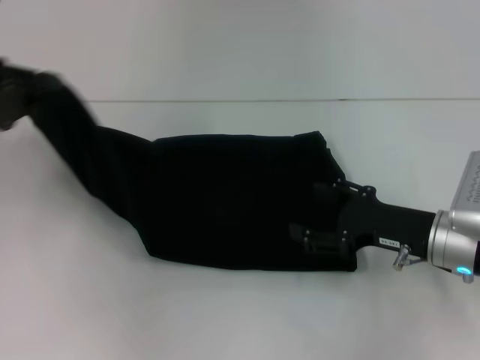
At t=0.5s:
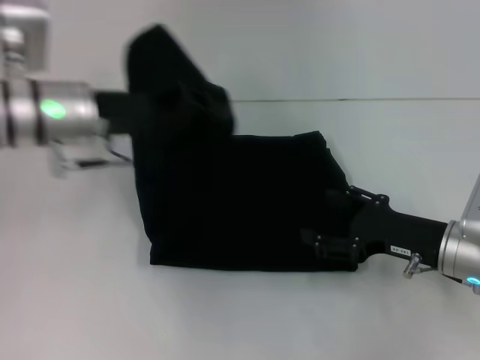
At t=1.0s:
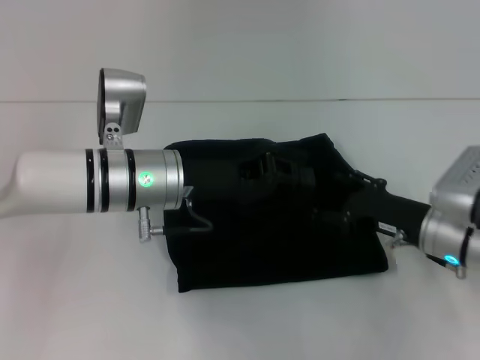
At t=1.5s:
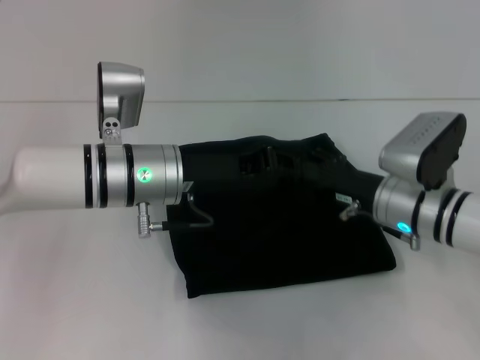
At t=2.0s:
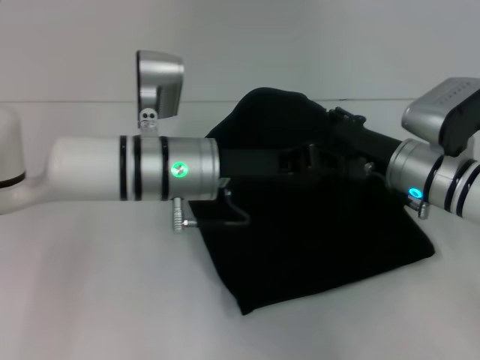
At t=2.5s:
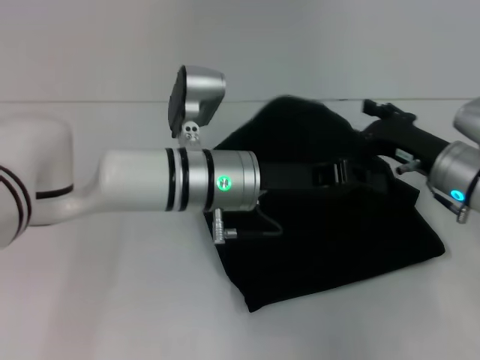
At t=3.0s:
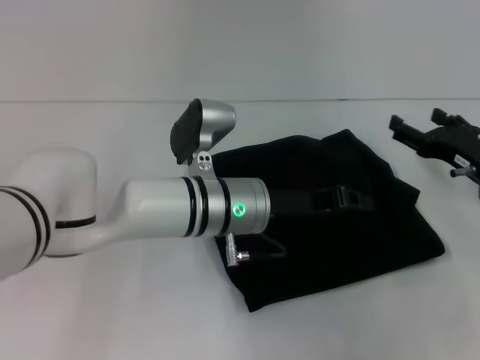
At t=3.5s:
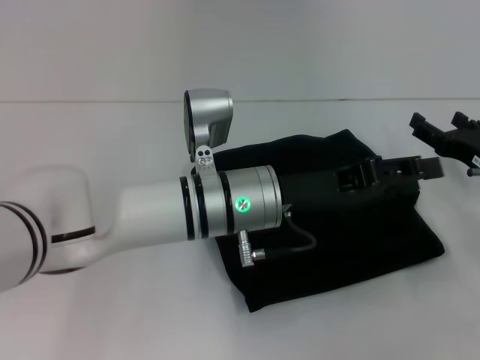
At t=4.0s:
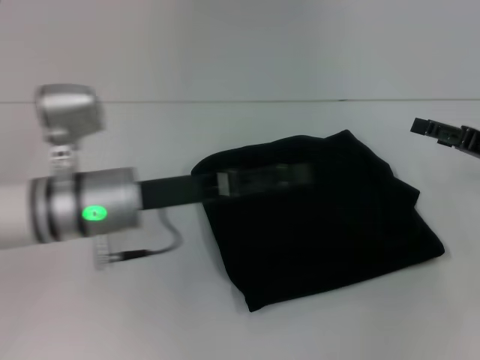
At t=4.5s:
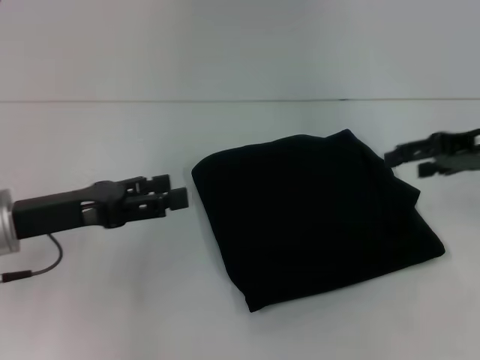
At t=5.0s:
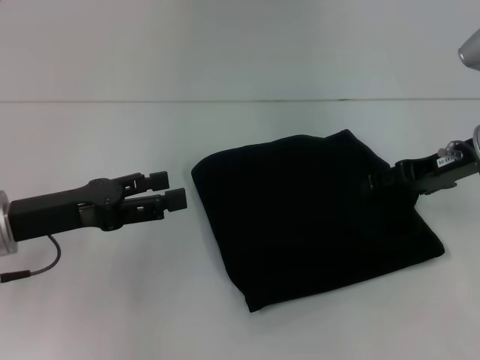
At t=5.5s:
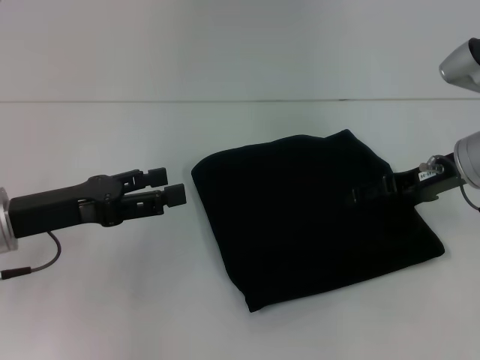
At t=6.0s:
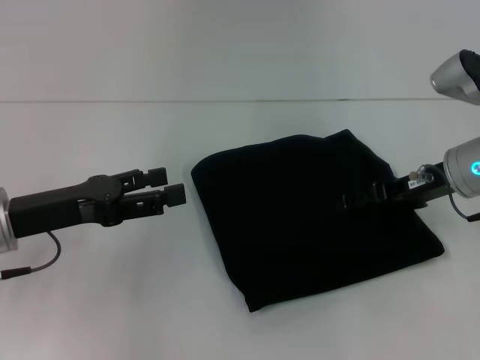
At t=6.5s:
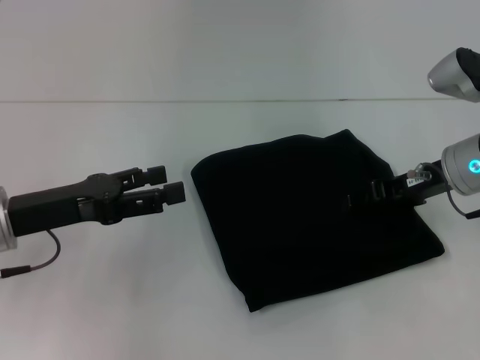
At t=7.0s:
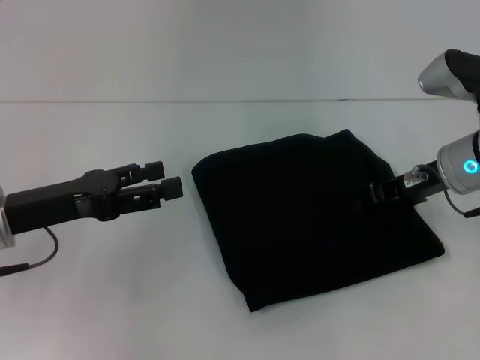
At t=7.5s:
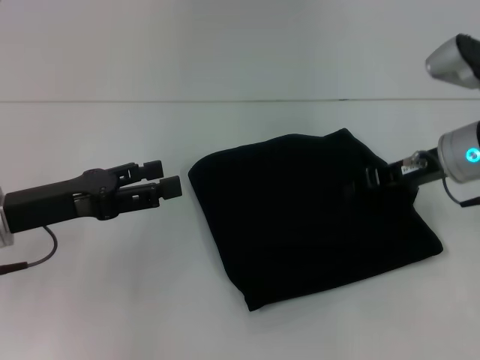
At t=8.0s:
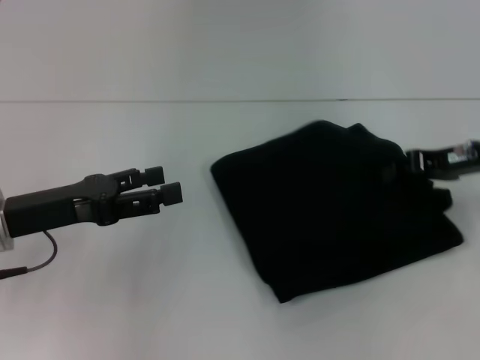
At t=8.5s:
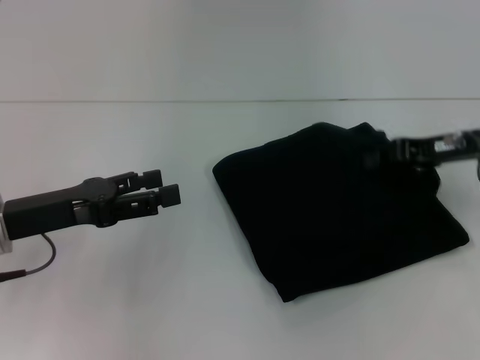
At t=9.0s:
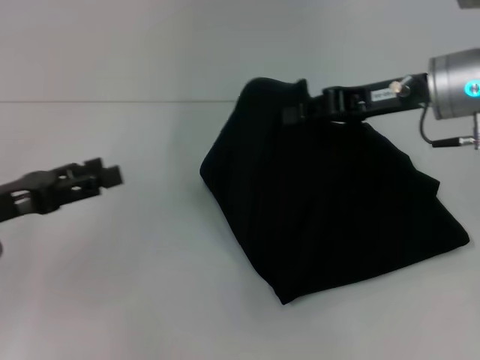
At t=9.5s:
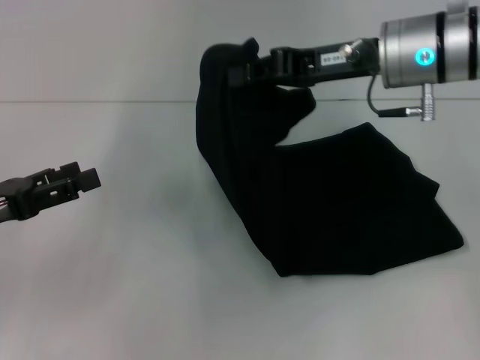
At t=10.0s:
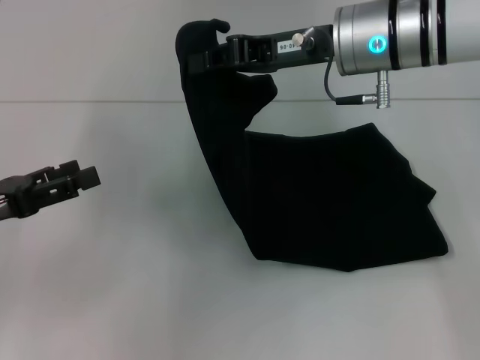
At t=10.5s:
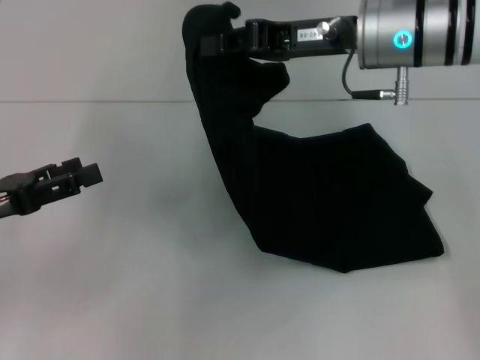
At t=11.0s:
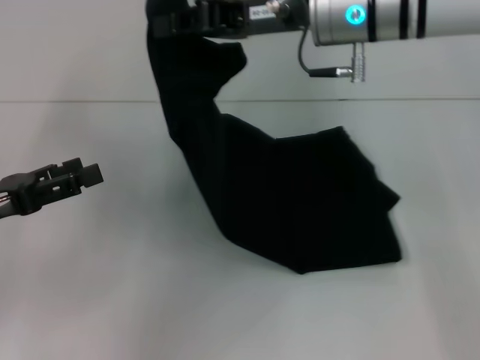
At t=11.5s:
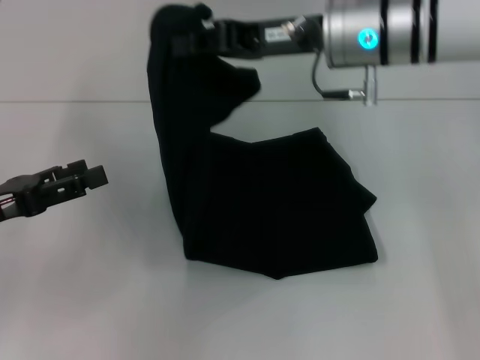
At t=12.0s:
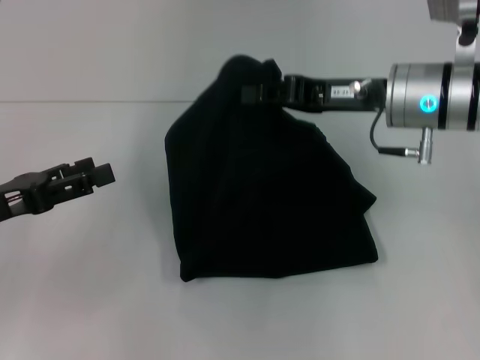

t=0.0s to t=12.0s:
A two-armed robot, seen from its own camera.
Step, t=0.0s to t=3.0s: Fold the clothes with your left hand.
t=0.0s to t=2.0s: The right gripper travels forward by about 5 cm, while the left gripper travels to the right by some 25 cm.
t=2.0s to t=4.0s: The right gripper is displaced to the right by approximately 15 cm. The left gripper goes approximately 5 cm to the left, and opens its fingers.
t=4.0s to t=6.0s: Both grippers move to the left, approximately 10 cm.
t=6.0s to t=8.0s: The right gripper closes up.
t=8.0s to t=10.0s: The right gripper shifts some 20 cm to the left and upward. The left gripper goes some 5 cm to the left.
t=10.0s to t=12.0s: The right gripper goes some 10 cm to the right and downward.

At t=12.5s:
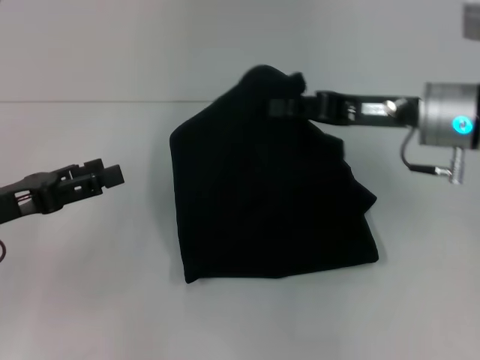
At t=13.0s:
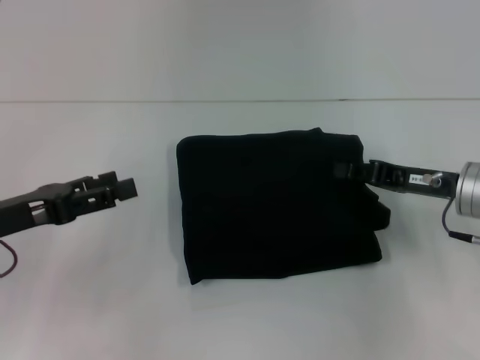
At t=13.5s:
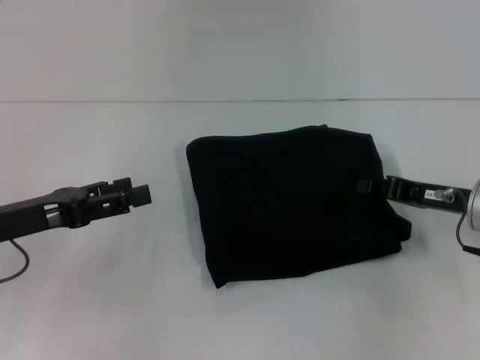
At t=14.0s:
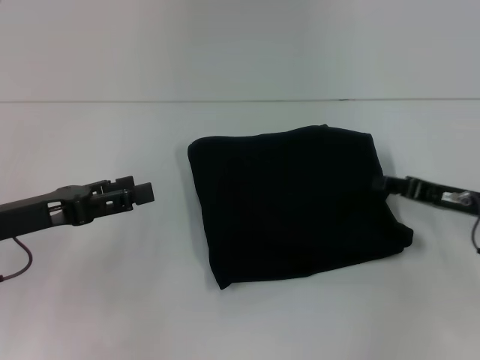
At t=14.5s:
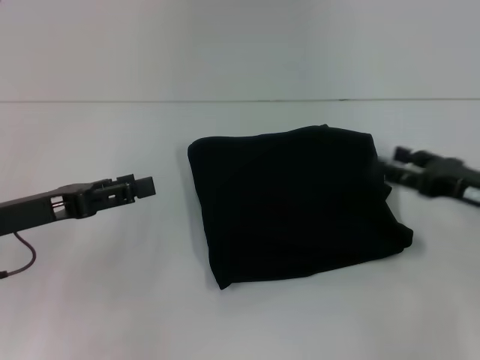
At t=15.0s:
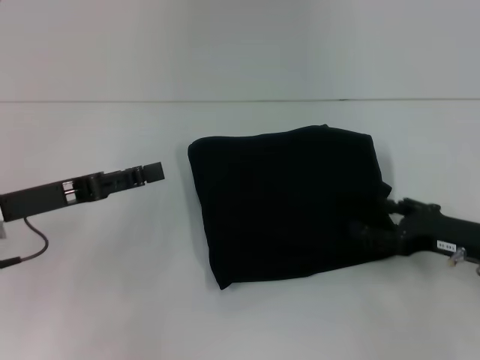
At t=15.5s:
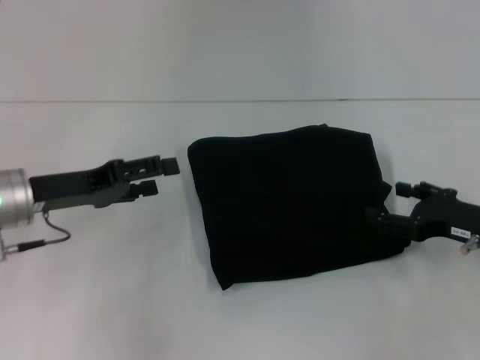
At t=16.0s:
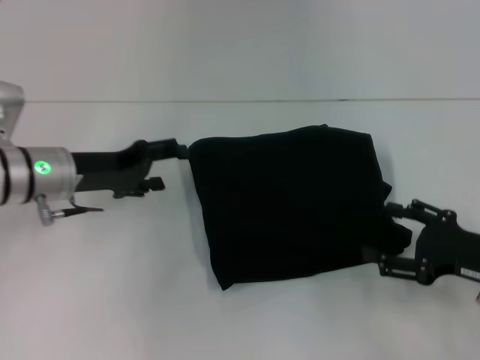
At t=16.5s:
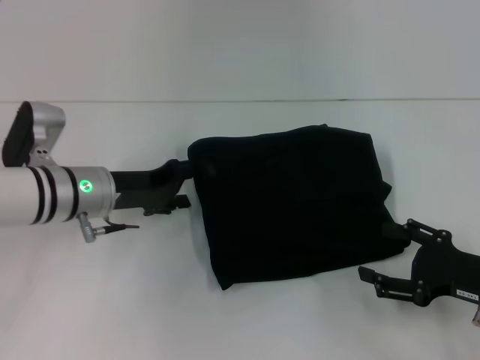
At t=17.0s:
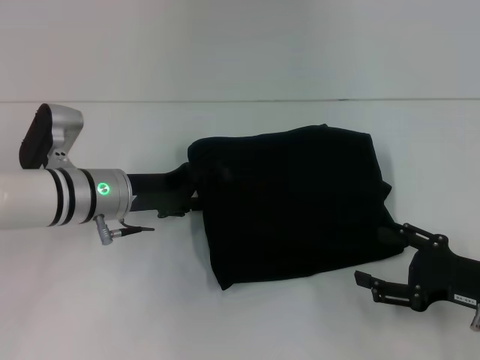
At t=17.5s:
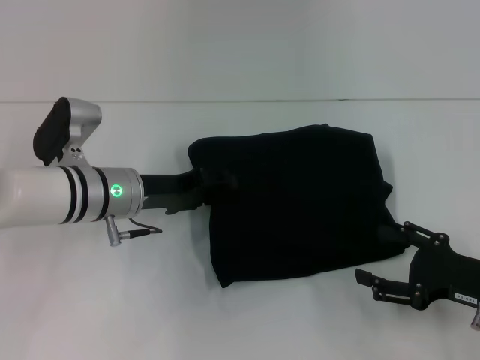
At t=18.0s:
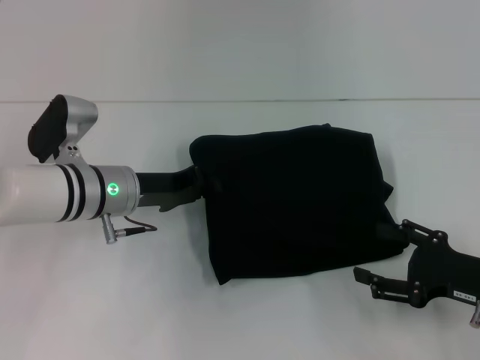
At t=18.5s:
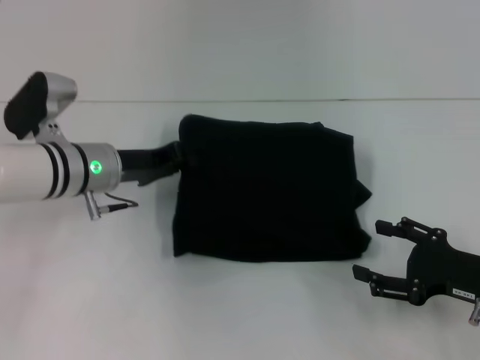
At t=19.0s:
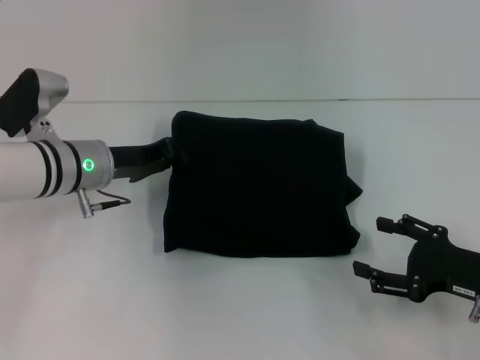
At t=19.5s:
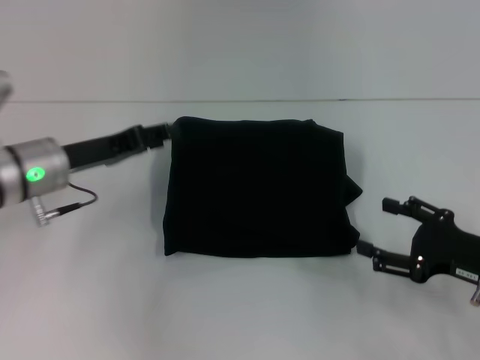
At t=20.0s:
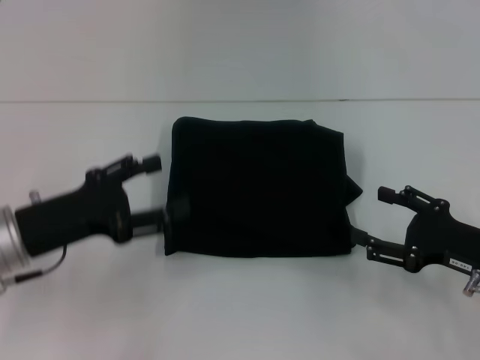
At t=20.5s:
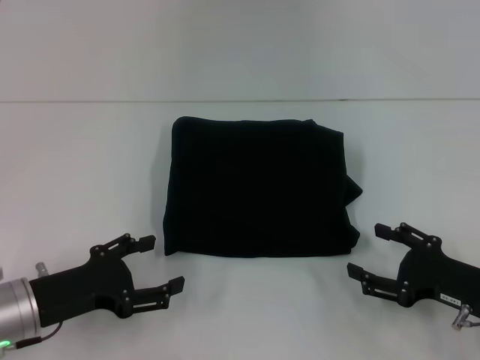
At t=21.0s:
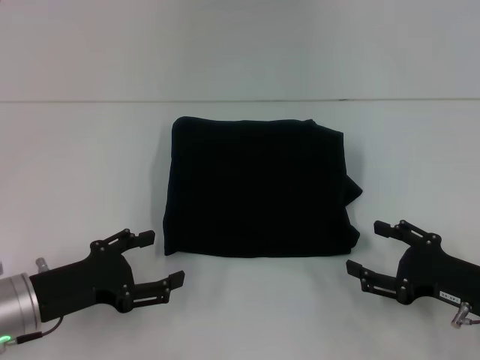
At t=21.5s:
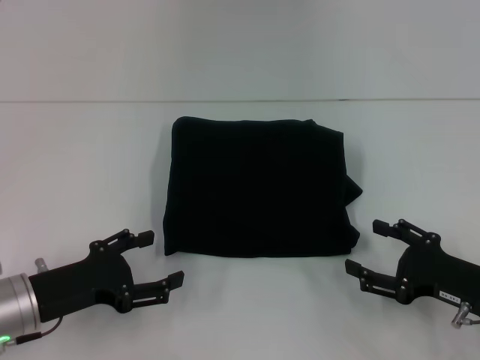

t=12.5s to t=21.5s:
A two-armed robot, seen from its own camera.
t=12.5s to t=14.5s: The right gripper shifts some 15 cm to the right, downward and backward, and opens up.
t=14.5s to t=17.0s: The right gripper moves backward, roughly 5 cm, while the left gripper moves to the right and forward, about 15 cm.
t=17.0s to t=19.5s: The left gripper heads to the left, covering some 5 cm, and closes its fingers.
t=19.5s to t=21.5s: The left gripper shifts about 15 cm backward and downward, and opens up.

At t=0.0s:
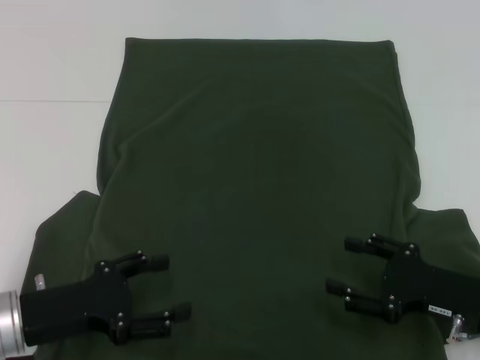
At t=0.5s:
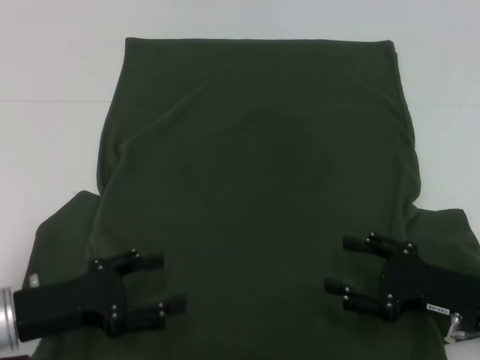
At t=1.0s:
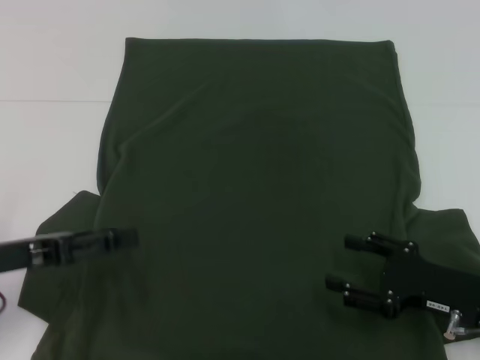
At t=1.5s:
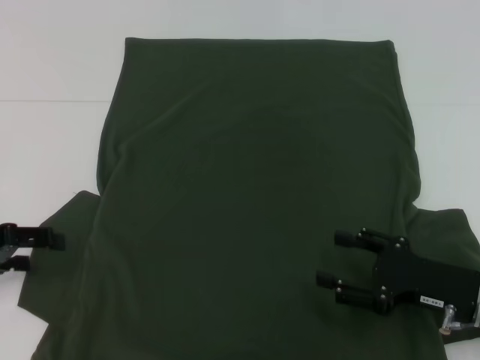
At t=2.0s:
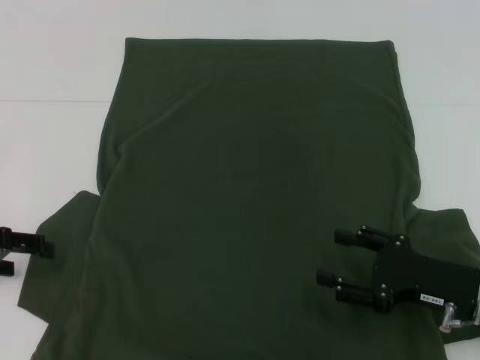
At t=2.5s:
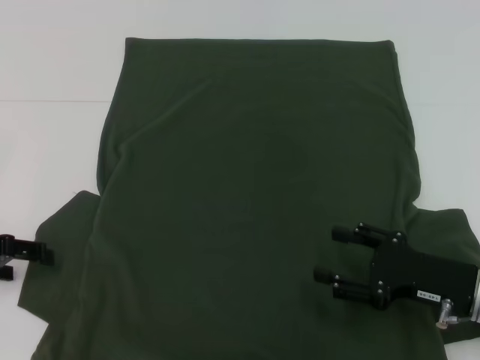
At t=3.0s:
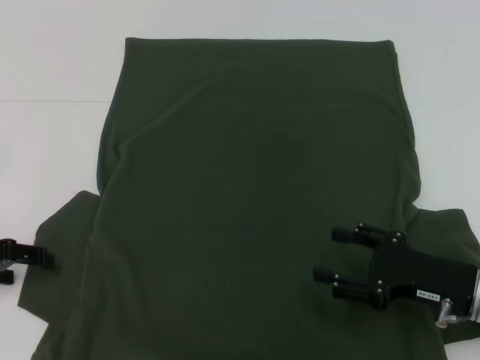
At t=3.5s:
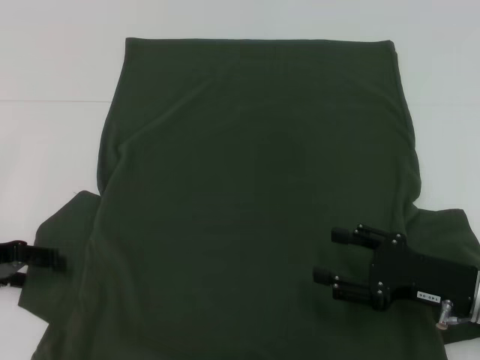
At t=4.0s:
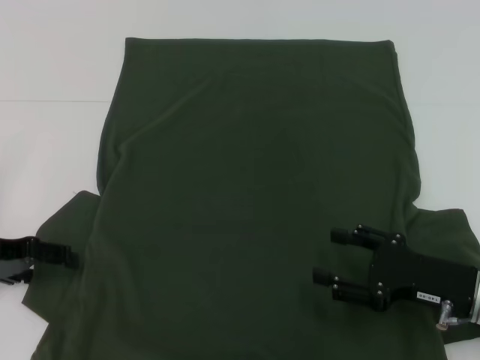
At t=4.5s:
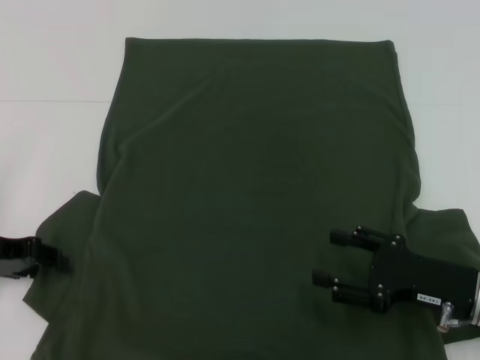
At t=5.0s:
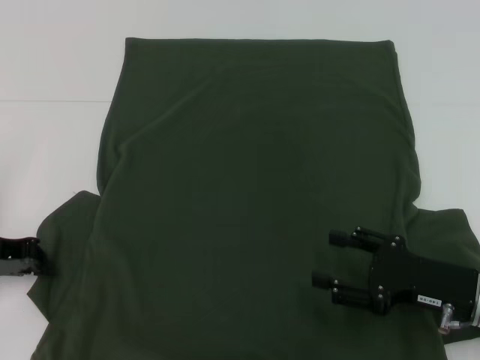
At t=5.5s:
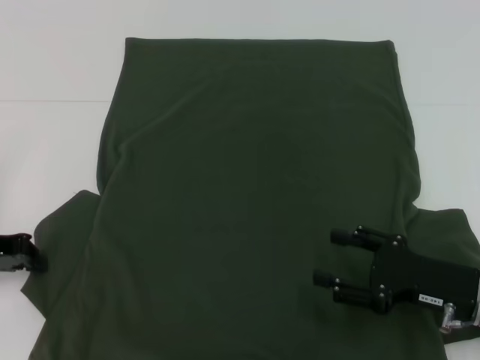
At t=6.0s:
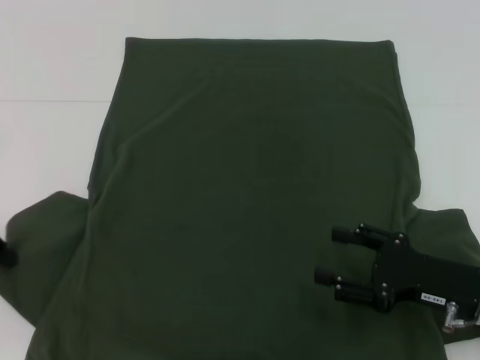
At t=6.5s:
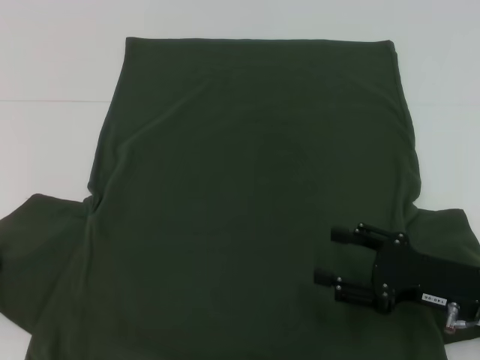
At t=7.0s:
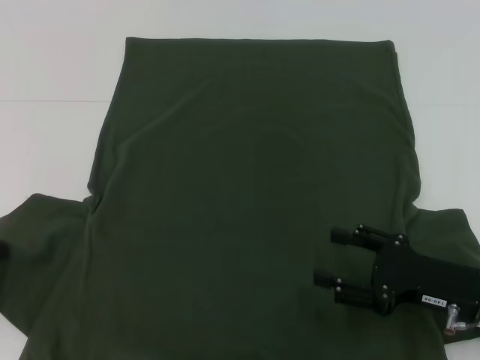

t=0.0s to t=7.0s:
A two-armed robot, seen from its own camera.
t=0.0s to t=2.0s: The left gripper goes approximately 15 cm to the left, forward and upward.
t=2.0s to t=3.5s: The grippers stay close to where they were, moving slightly.
t=3.5s to t=5.0s: The left gripper closes.
t=5.0s to t=7.0s: The left gripper shifts by roughly 5 cm.
